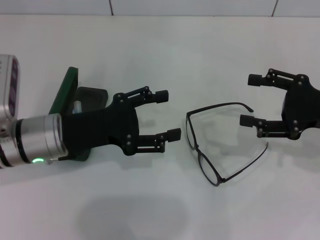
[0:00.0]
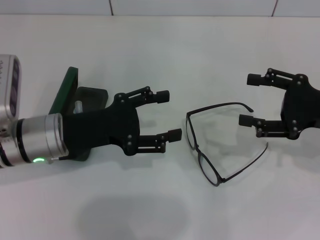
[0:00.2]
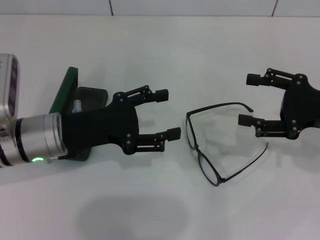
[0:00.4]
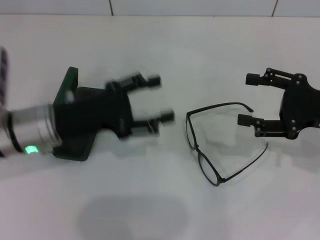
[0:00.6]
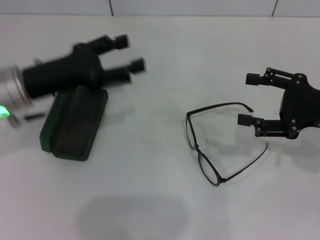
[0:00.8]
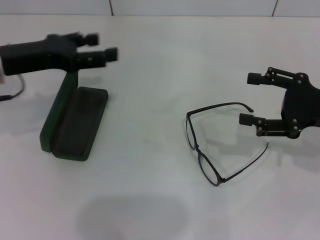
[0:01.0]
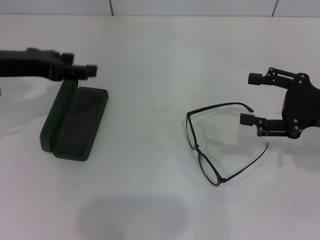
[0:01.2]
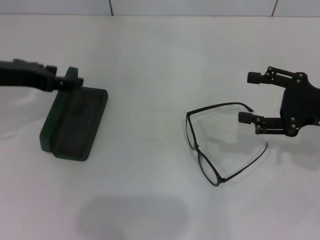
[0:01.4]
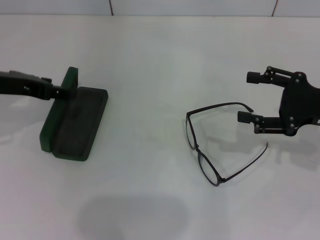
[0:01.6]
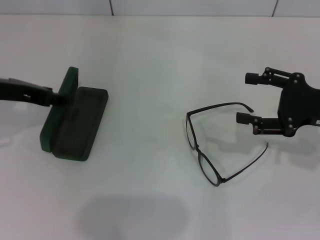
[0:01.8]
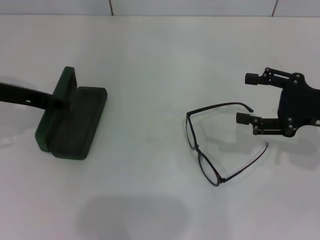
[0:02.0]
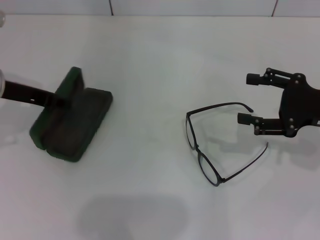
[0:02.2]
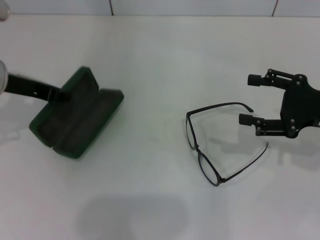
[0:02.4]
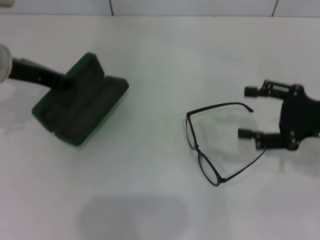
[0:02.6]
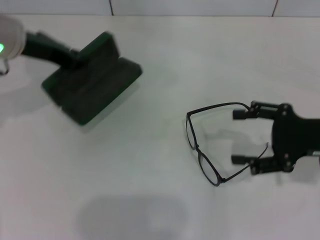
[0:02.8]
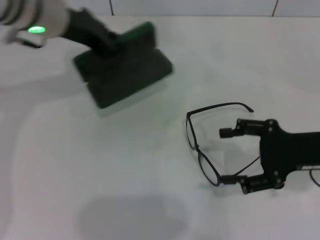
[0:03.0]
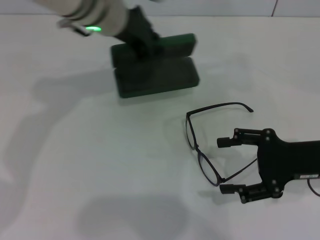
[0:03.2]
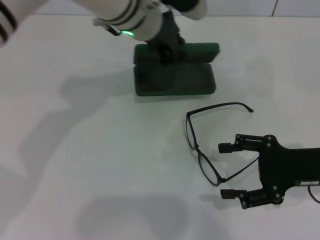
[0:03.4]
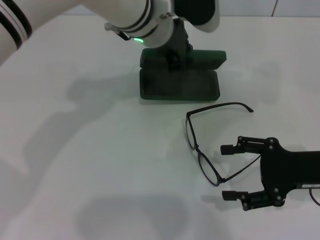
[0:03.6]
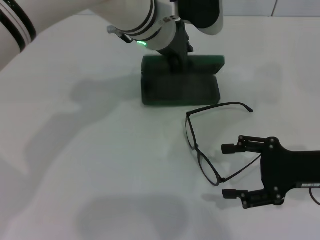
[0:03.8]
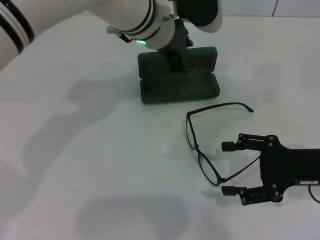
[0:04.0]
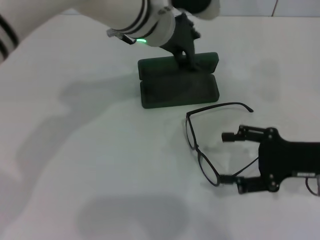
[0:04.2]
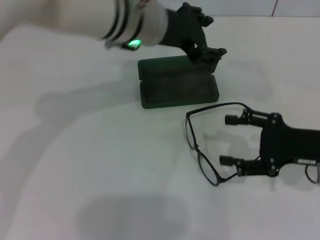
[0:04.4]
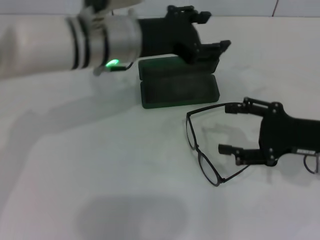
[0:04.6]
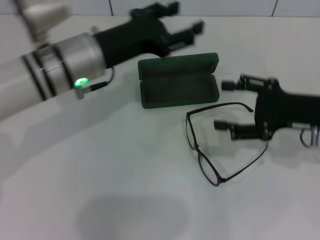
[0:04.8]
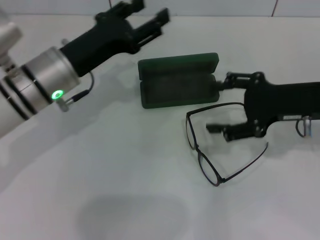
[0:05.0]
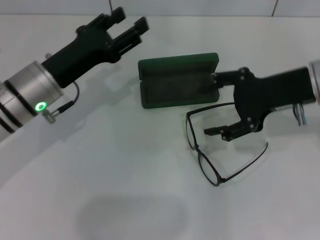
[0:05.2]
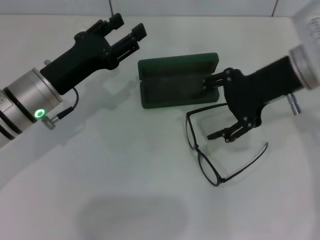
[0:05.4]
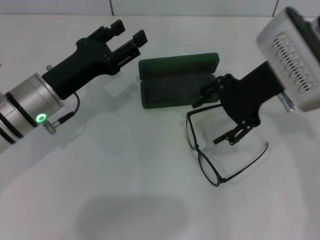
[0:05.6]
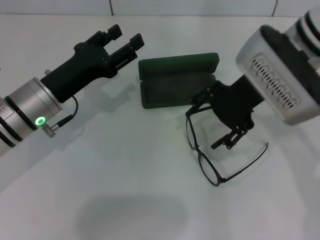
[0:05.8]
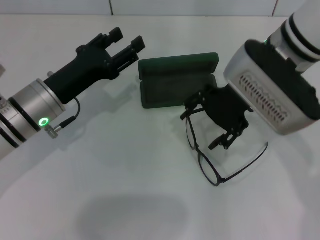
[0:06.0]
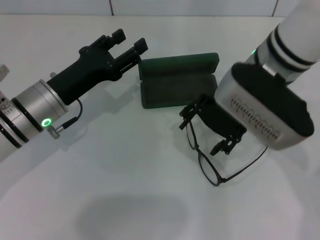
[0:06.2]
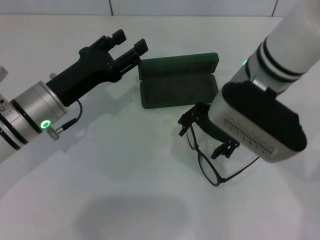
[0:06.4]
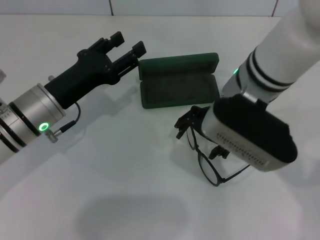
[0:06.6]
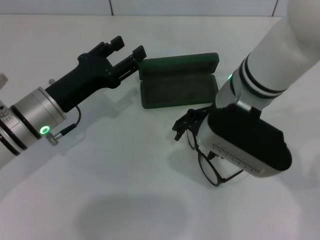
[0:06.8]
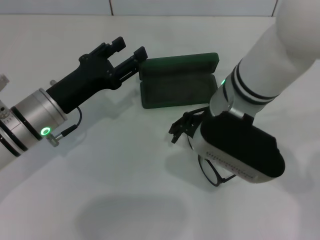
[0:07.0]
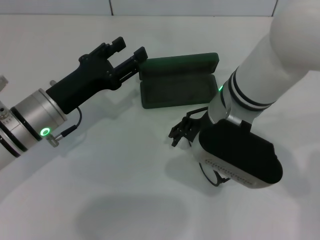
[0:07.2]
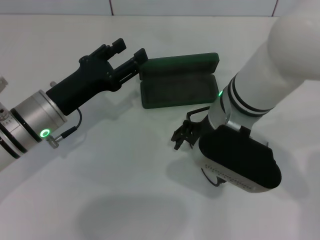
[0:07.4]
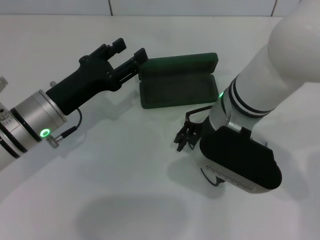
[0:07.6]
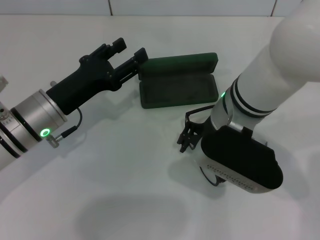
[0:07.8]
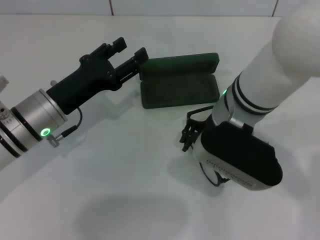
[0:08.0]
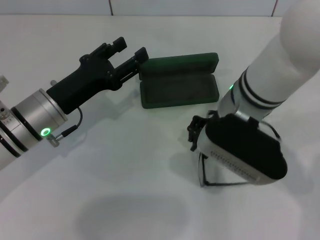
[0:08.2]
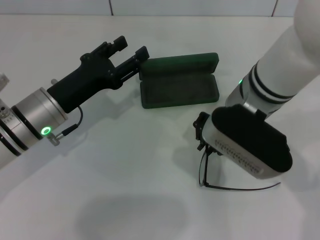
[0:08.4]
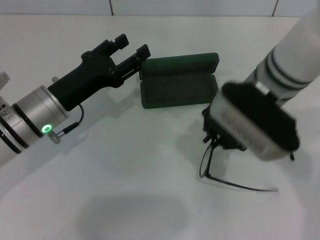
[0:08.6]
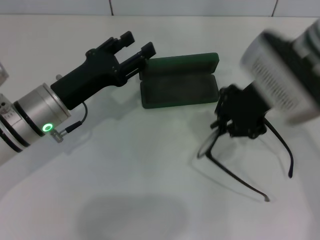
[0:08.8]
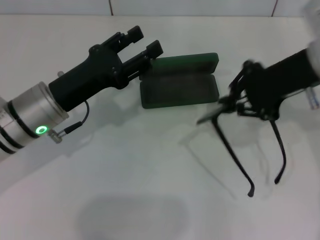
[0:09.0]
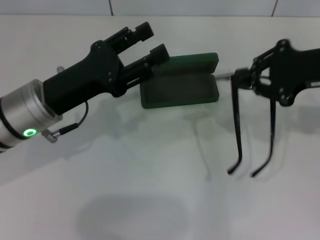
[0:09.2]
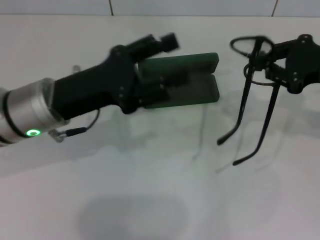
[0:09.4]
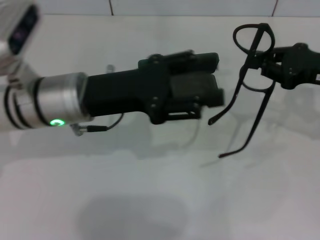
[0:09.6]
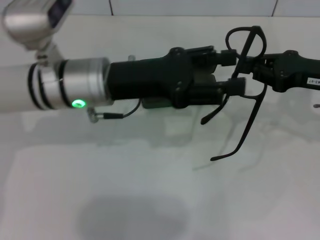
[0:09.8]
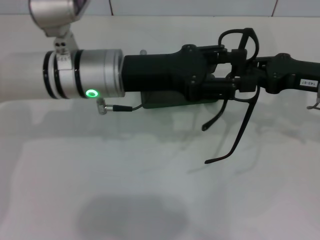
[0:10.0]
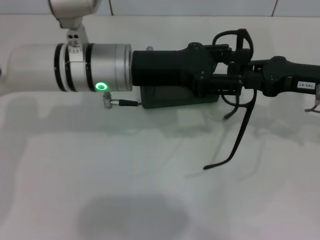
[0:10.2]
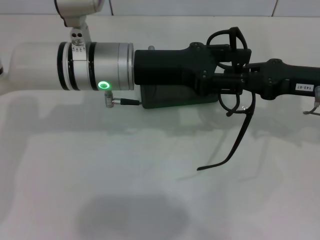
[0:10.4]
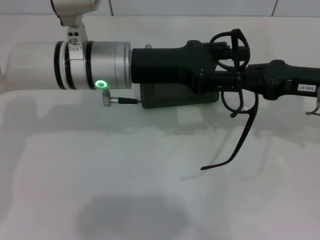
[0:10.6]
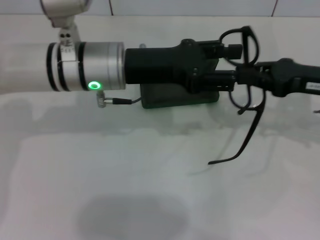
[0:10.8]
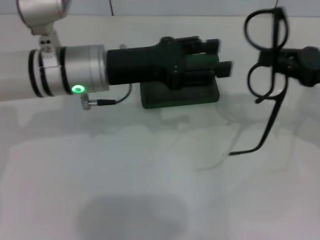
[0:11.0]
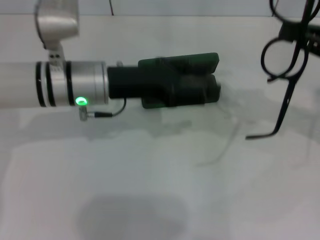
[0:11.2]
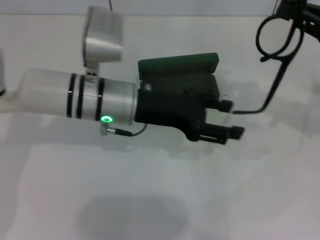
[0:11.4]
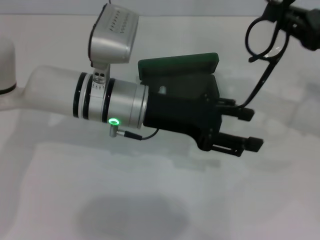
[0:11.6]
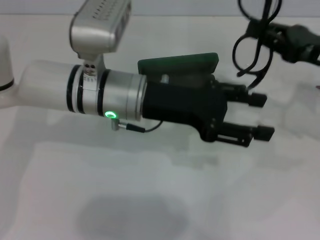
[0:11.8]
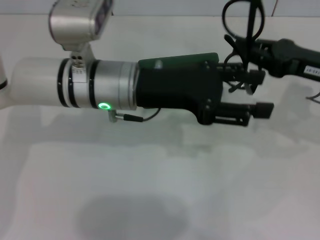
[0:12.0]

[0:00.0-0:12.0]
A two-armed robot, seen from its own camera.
Step, 0.0 to 1.8 s: Grab the glasses case with your left hand.
Step, 2.0 to 4.0 s: Place the glasses case in the center of the table with your left hand.
Step, 4.2 to 8.2 s: Grab the eyeglass frame with your right hand.
0.0 to 1.6 s: The left gripper heads to the left and upward, covering about 10 cm.
1.6 to 3.0 s: The left gripper heads to the right and forward, covering approximately 15 cm, and closes.
3.0 to 4.4 s: The left gripper is displaced to the right by about 10 cm, and opens.
4.4 to 6.0 s: The left gripper travels to the left, downward and backward by about 20 cm. Meanwhile the right gripper travels to the left, upward and forward by approximately 20 cm.
6.0 to 7.6 s: The right gripper travels downward by approximately 5 cm.
7.6 to 9.0 s: The right gripper heads to the right and upward, covering some 15 cm, and closes its fingers.
9.0 to 10.4 s: The left gripper is displaced to the right, upward and forward by some 10 cm, while the right gripper shifts roughly 10 cm downward and to the right.

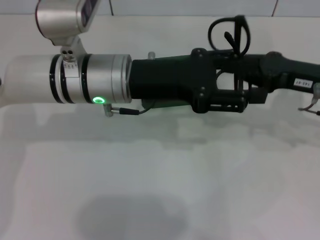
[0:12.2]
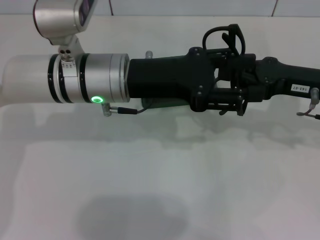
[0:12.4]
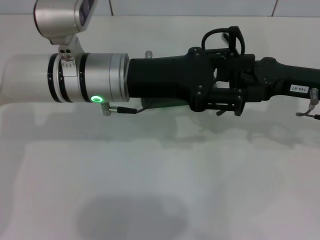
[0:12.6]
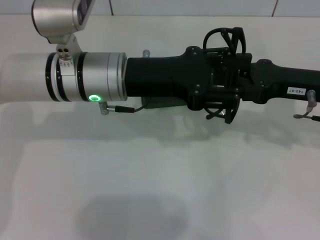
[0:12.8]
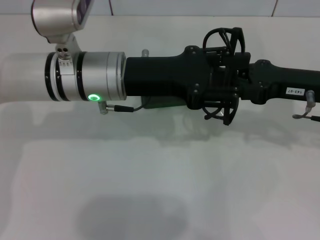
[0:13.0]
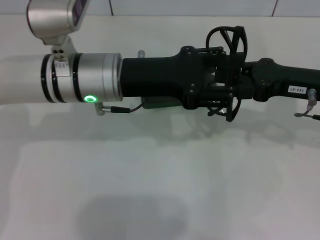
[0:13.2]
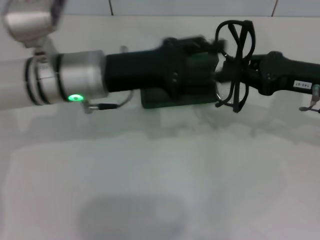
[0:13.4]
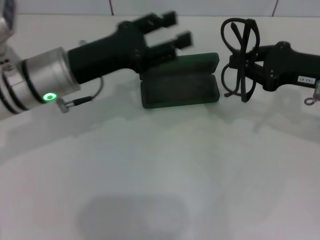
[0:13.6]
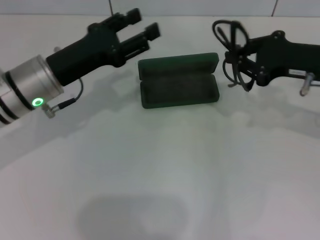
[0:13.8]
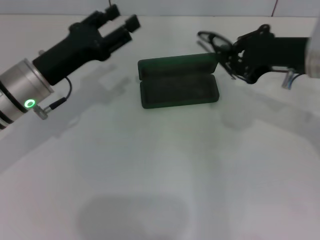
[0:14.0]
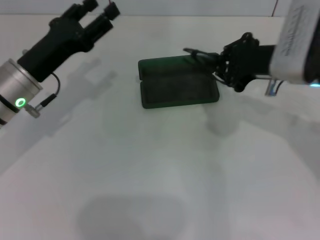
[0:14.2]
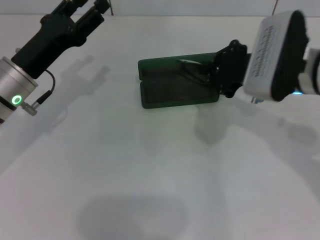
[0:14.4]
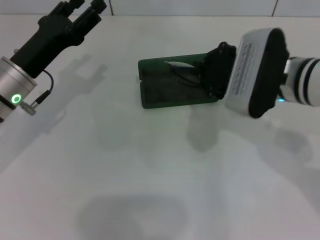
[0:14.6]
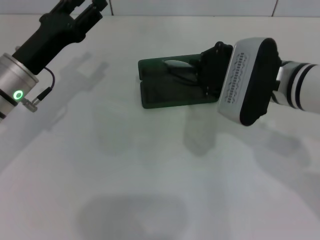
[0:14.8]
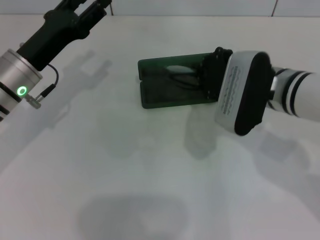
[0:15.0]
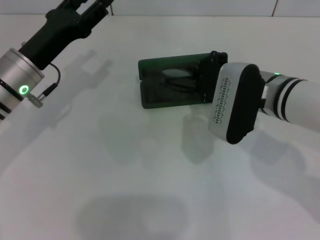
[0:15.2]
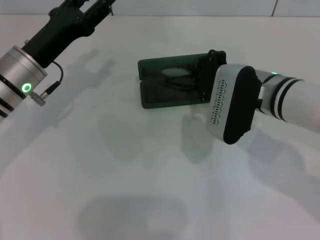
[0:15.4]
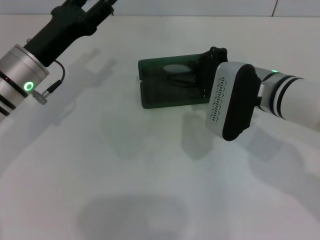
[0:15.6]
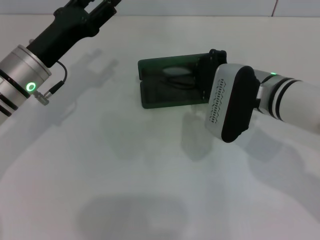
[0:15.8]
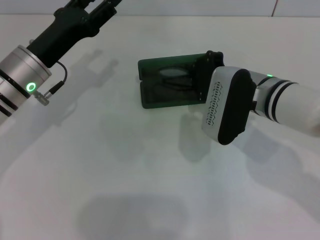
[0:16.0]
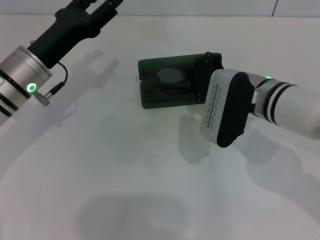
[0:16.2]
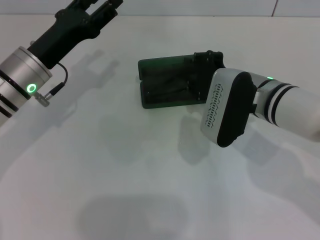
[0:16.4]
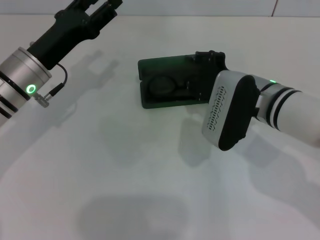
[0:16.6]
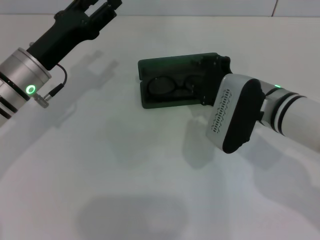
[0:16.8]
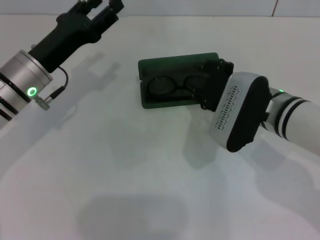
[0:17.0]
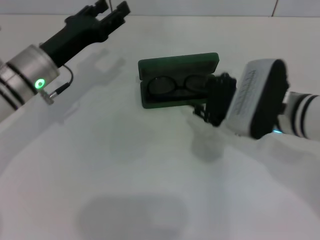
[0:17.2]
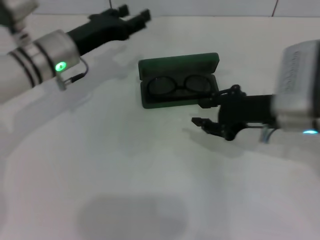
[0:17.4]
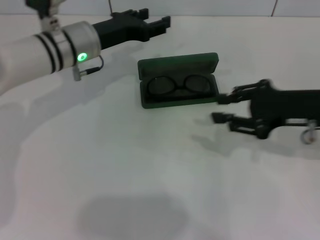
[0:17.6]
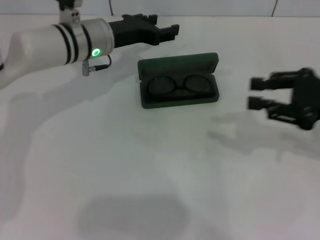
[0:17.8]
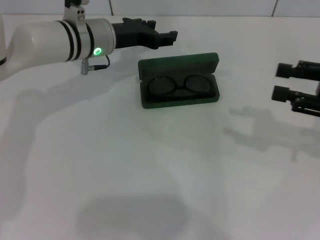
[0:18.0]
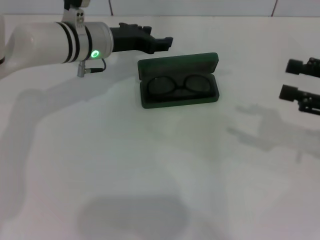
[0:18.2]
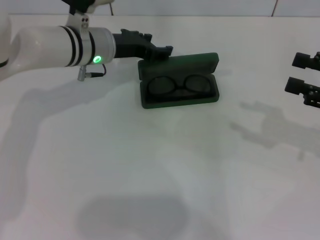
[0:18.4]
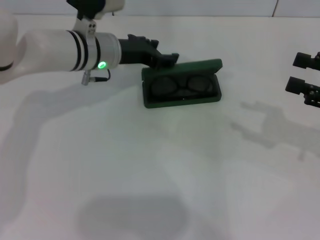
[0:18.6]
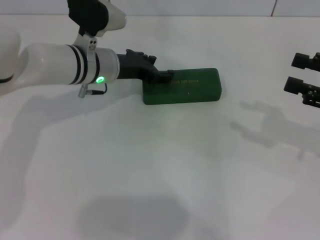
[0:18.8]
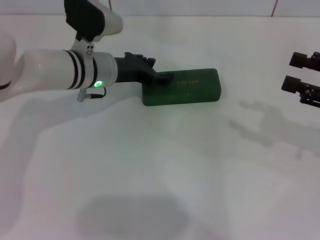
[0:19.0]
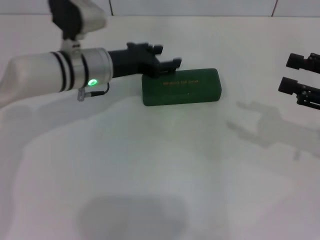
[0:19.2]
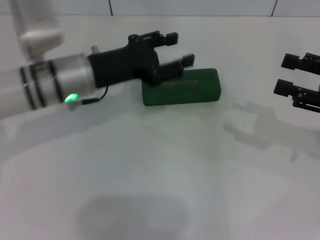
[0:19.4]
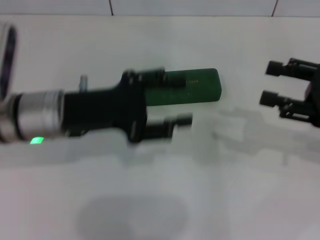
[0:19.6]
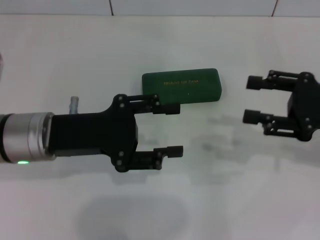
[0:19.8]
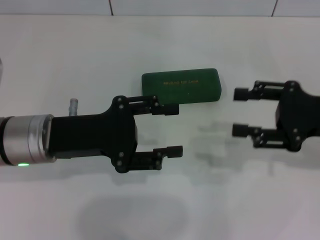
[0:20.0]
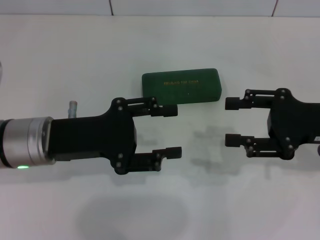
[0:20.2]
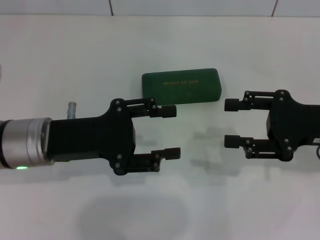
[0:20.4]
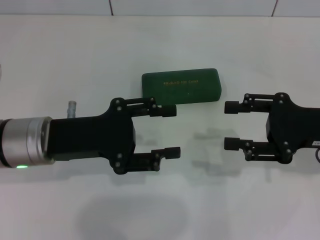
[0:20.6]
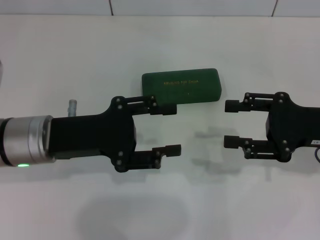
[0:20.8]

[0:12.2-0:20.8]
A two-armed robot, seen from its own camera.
Step, 13.2 to 16.8 s: Put the glasses into the case with your right hand.
Step, 17.0 to 19.0 s: Close the glasses case with your left hand.
12.2 to 13.6 s: The left gripper is displaced to the left by some 5 cm.
13.6 to 15.0 s: The right gripper goes approximately 10 cm to the left. The left gripper shifts roughly 5 cm to the left.
15.0 to 16.6 s: The grippers move only a little.
16.6 to 18.0 s: The right gripper shifts some 20 cm to the right, while the left gripper goes approximately 10 cm forward and to the right.
18.0 to 19.4 s: The left gripper heads backward, covering some 10 cm.
19.4 to 20.8 s: The left gripper shifts roughly 10 cm backward. Meanwhile the right gripper goes about 5 cm to the left.

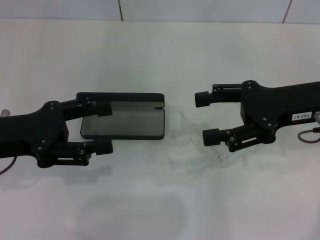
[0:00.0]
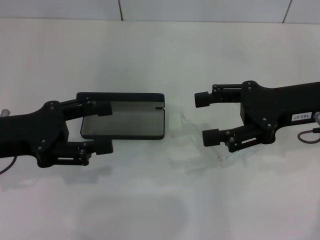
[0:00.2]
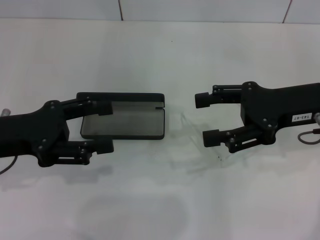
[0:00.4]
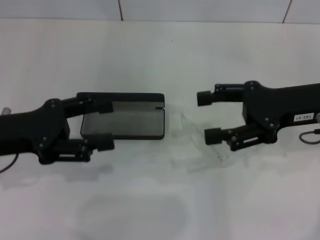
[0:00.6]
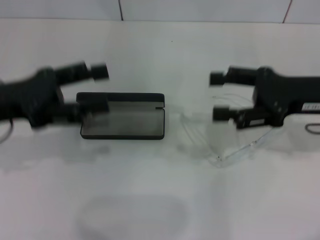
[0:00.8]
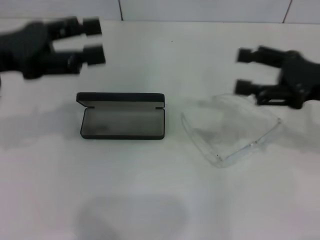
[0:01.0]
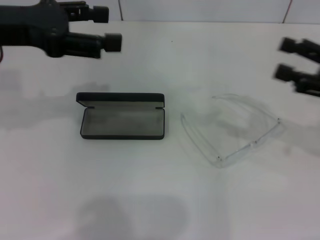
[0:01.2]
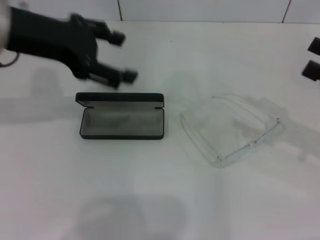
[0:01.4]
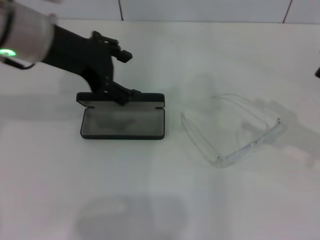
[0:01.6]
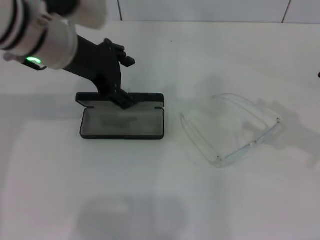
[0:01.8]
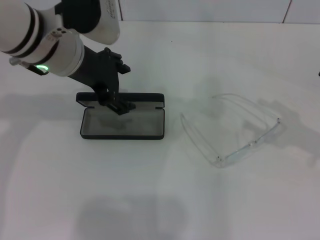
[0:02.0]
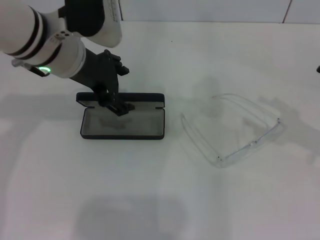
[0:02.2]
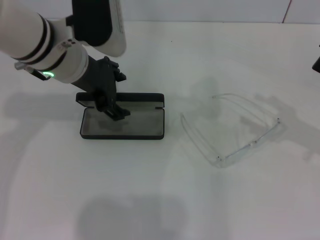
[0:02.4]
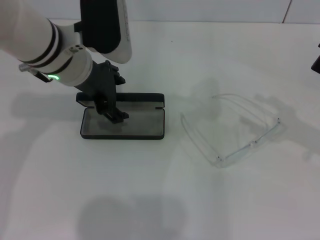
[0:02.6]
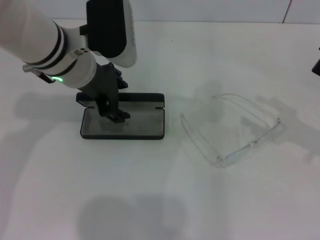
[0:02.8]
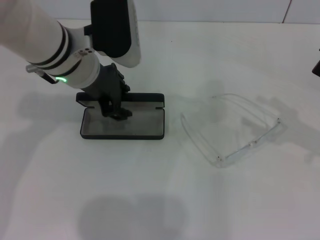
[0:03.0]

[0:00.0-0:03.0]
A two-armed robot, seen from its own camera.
0.0 to 1.6 s: The left gripper shifts about 15 cm upward, to the right and forward. The right gripper moves to the right and backward, some 15 cm.
1.6 to 3.0 s: The left gripper is displaced downward and to the right by some 10 cm.
